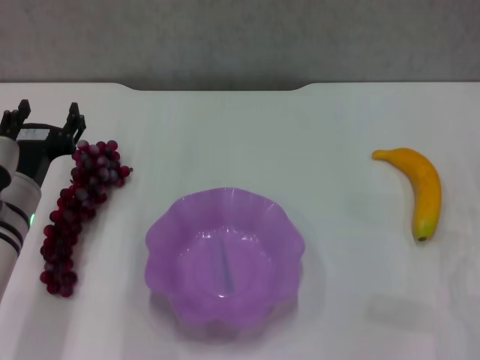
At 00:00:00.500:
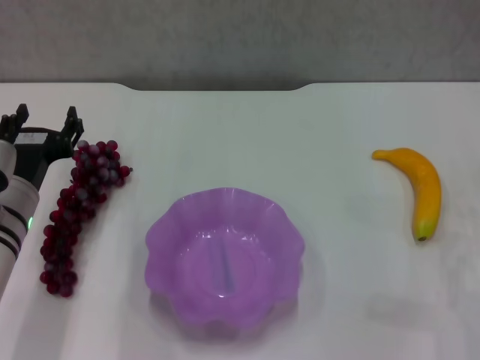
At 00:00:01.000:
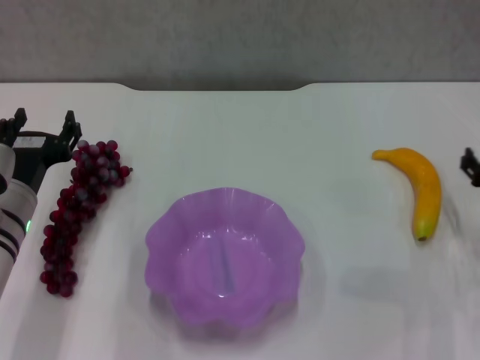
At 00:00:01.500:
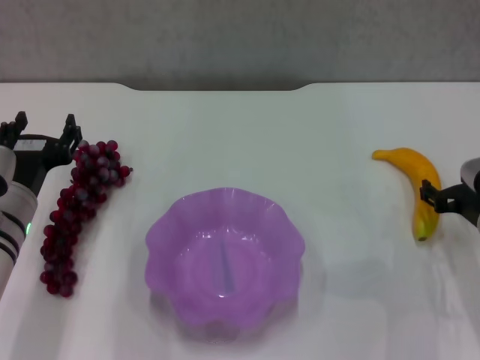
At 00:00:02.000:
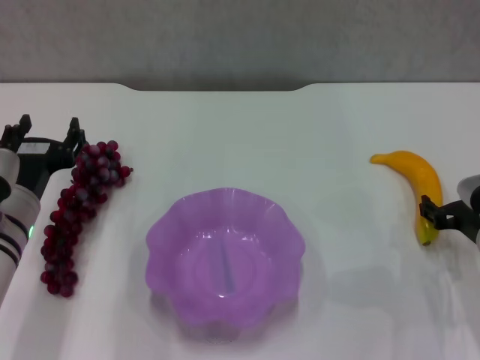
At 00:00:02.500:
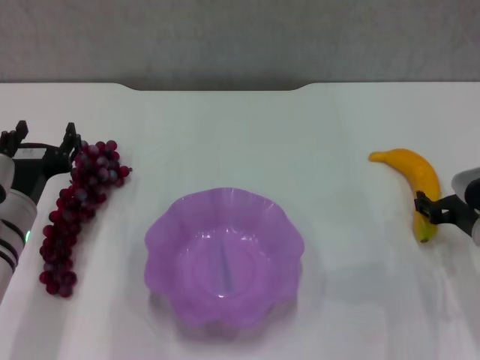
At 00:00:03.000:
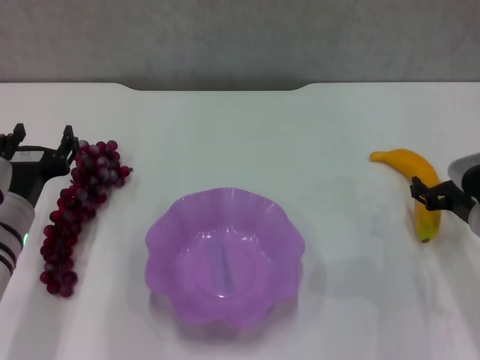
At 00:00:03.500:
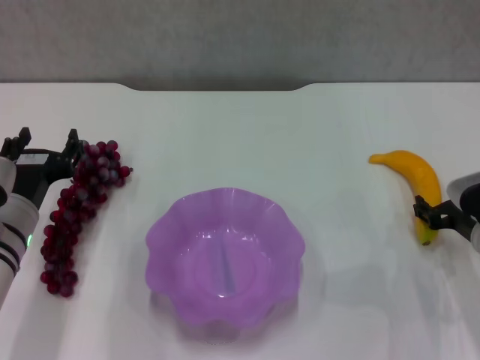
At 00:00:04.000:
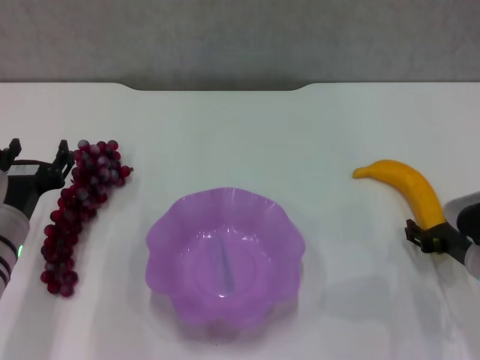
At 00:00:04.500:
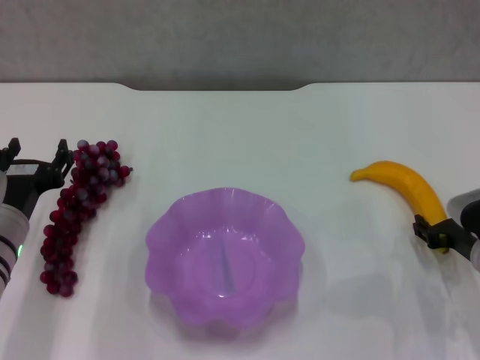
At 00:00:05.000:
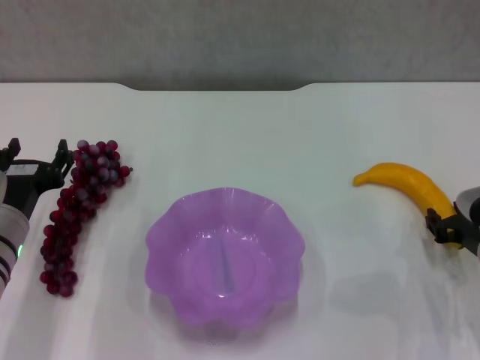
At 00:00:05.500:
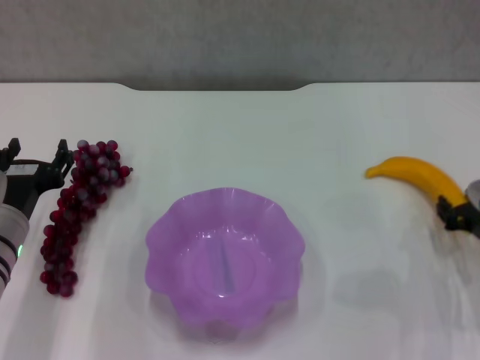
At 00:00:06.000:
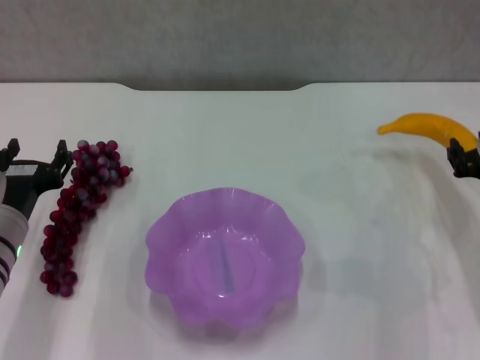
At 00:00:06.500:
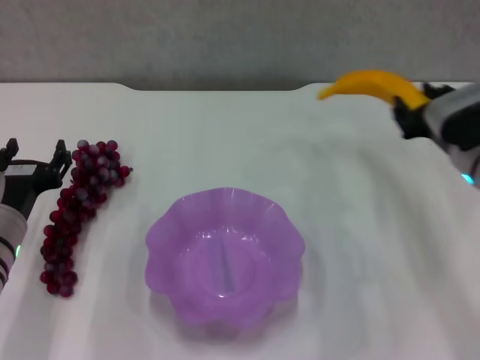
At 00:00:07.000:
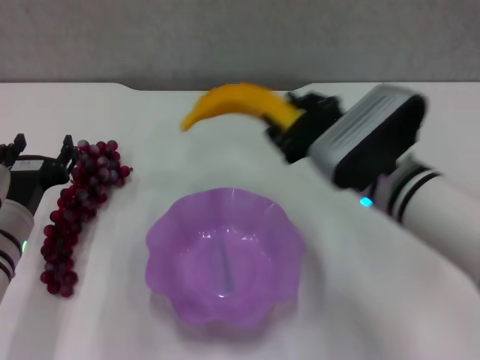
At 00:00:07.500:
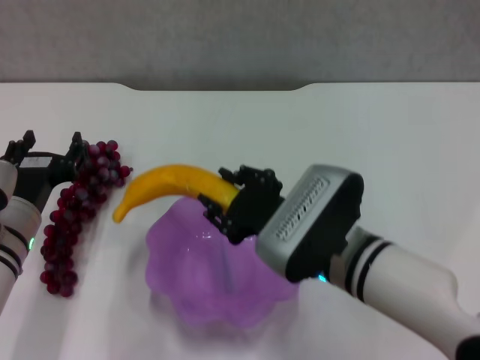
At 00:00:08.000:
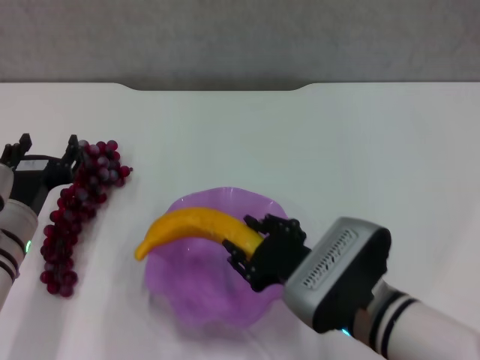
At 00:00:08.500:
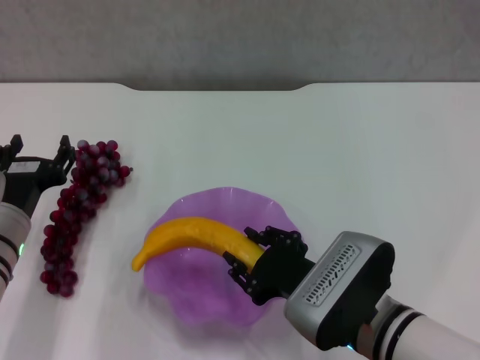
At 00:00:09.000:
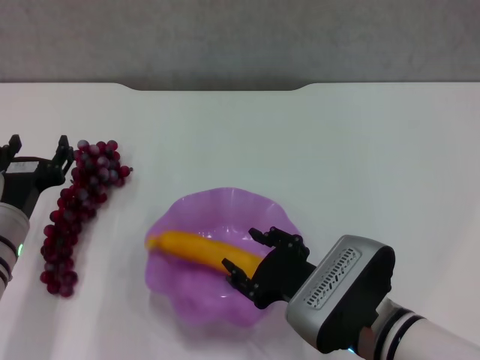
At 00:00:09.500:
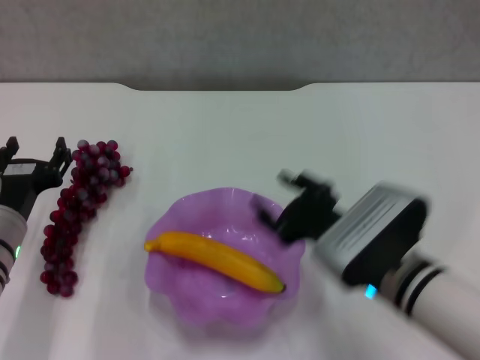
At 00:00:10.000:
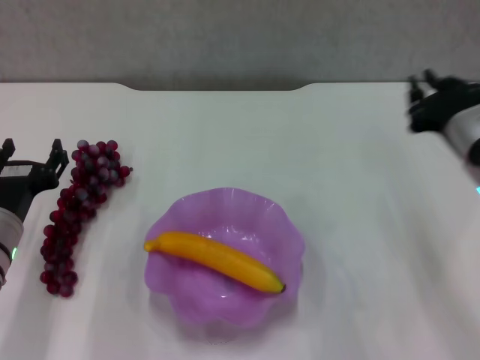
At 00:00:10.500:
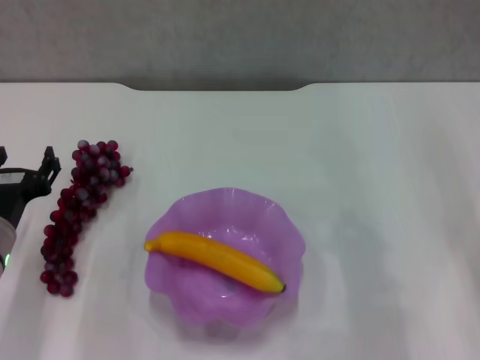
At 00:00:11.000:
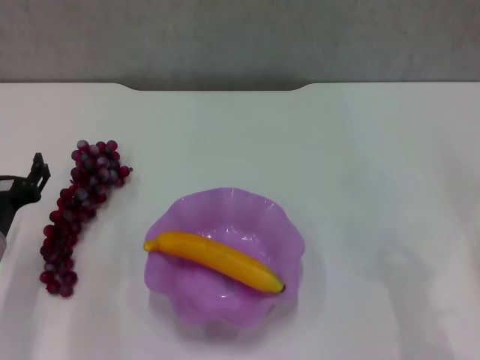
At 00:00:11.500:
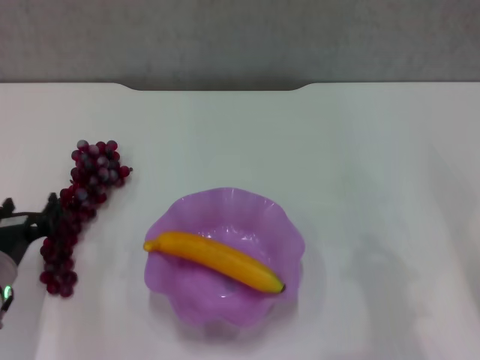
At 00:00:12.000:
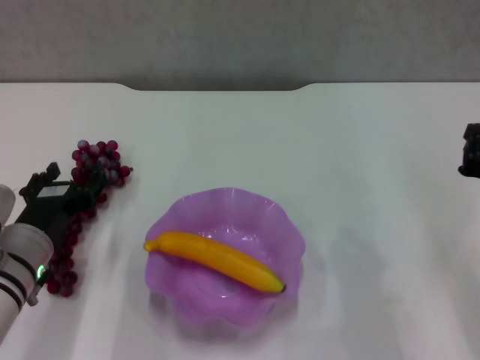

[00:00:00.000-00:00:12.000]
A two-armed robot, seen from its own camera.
Step, 00:00:00.000 to 00:00:05.000: Grasp the banana with right gripper.
Step, 00:00:05.500 to 00:00:09.000: Place the banana in the purple plate with right gripper.
00:00:00.000 to 00:00:02.000: The right gripper travels to the left by about 5 cm.
00:00:02.000 to 00:00:04.000: The grippers stay close to where they were, moving slightly.
00:00:04.000 to 00:00:06.000: The right gripper moves upward, approximately 5 cm, and closes.
00:00:06.000 to 00:00:08.000: The right gripper is displaced to the left and backward by some 20 cm.
00:00:08.000 to 00:00:10.000: The right gripper travels to the right, forward and upward by some 15 cm.
00:00:10.000 to 00:00:12.000: The right gripper shifts some 5 cm backward, and closes.

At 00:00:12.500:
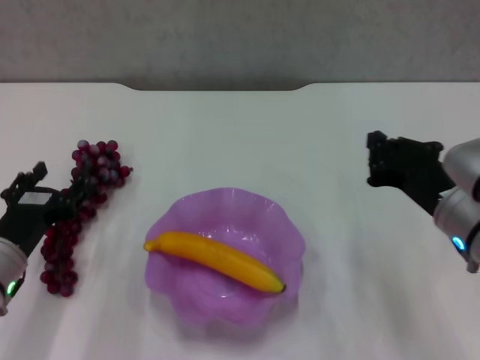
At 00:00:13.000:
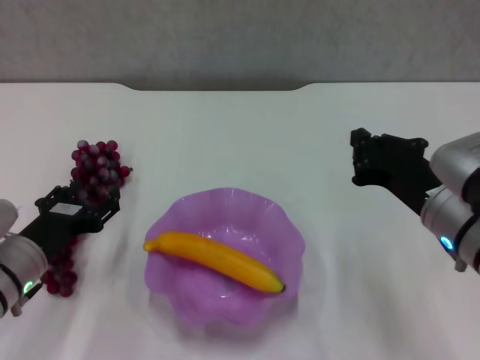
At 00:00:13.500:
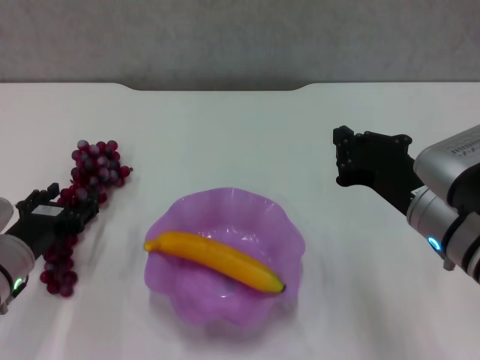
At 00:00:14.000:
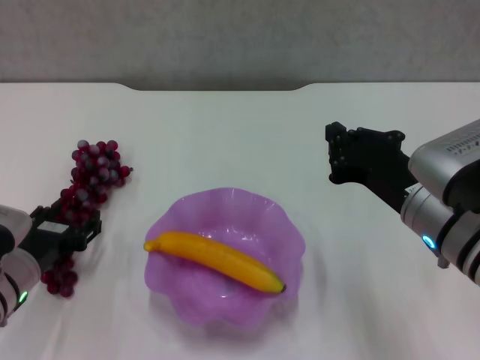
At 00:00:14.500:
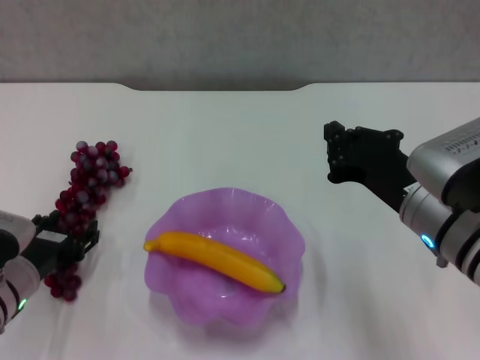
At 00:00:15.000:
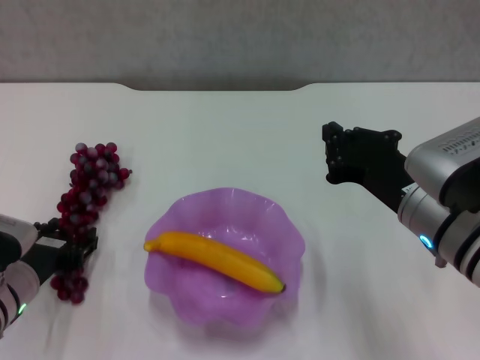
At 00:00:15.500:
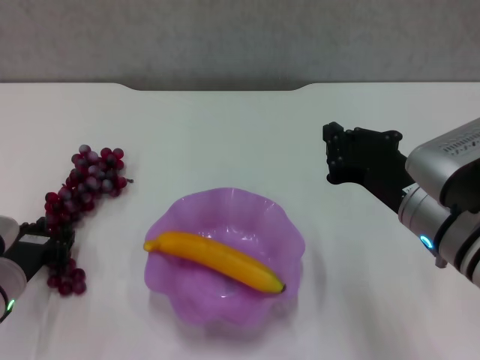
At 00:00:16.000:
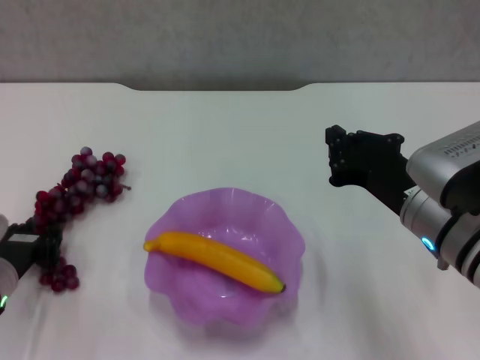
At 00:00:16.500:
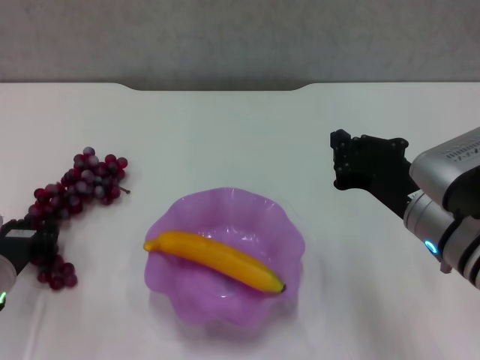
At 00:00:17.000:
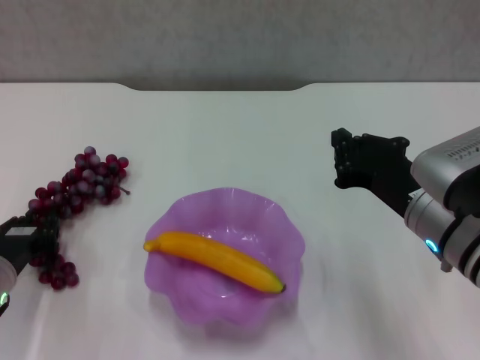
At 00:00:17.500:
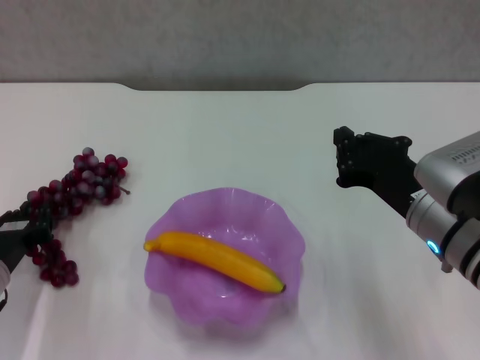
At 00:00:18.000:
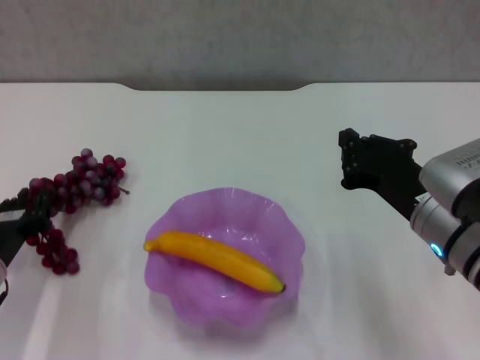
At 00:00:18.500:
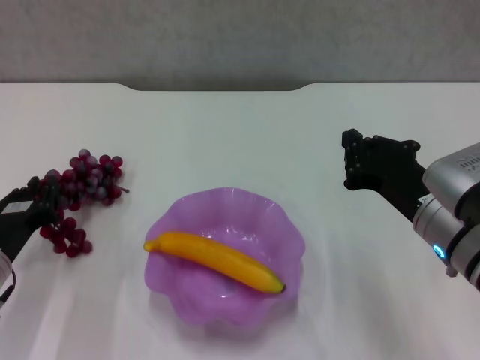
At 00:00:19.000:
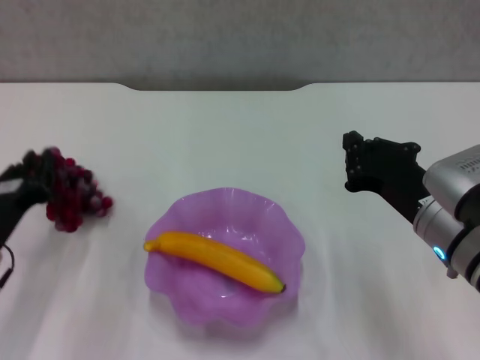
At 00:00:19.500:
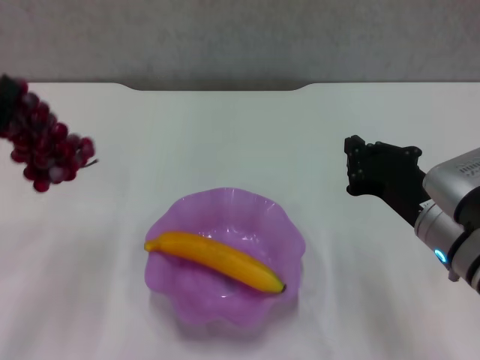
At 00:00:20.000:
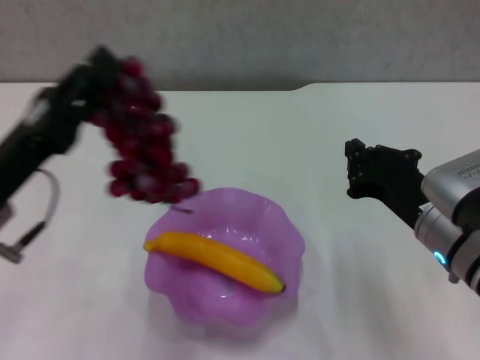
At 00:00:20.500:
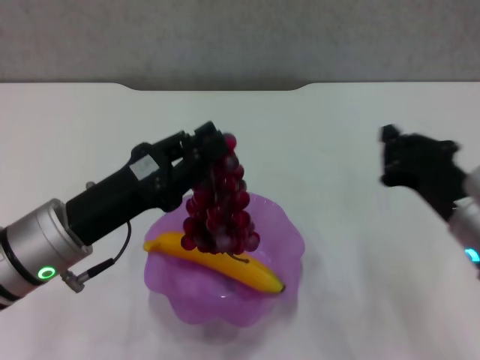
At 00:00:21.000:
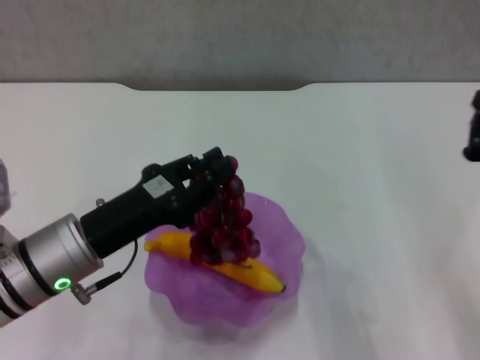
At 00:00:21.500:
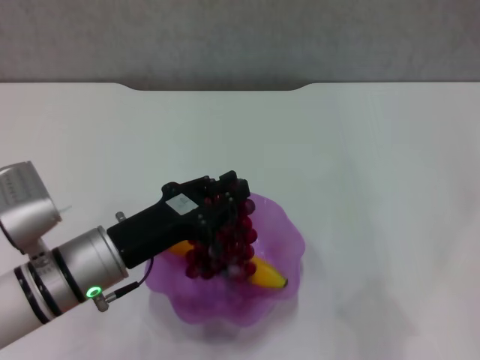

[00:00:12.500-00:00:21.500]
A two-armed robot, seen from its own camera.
Step, 00:00:12.500 to 00:00:15.500: Grasp the grape with left gripper.
00:00:14.500 to 00:00:17.000: The left gripper closes.
00:00:17.000 to 00:00:19.500: The left gripper is displaced upward by about 10 cm.
00:00:19.500 to 00:00:21.500: The right gripper heads to the right and backward, covering approximately 10 cm. Meanwhile the left gripper heads to the right, covering roughly 15 cm.

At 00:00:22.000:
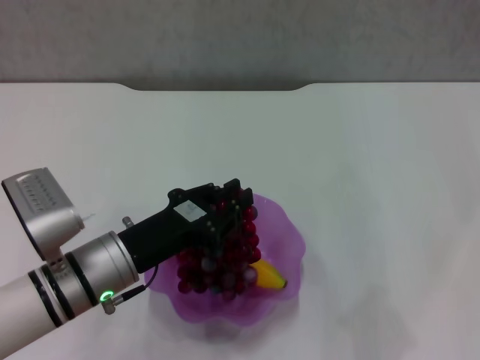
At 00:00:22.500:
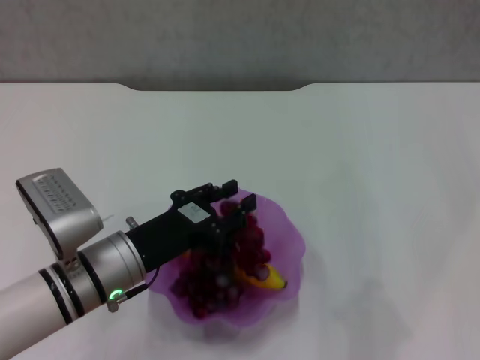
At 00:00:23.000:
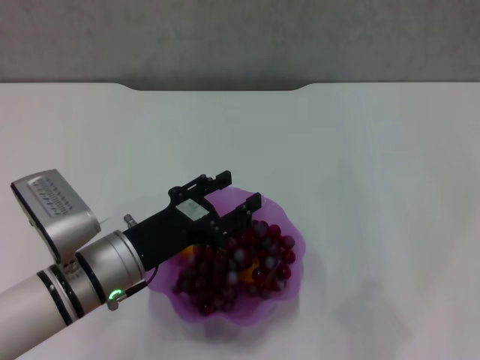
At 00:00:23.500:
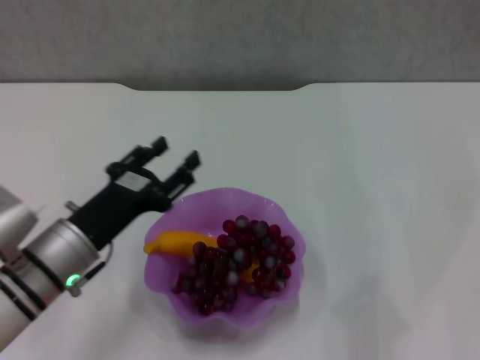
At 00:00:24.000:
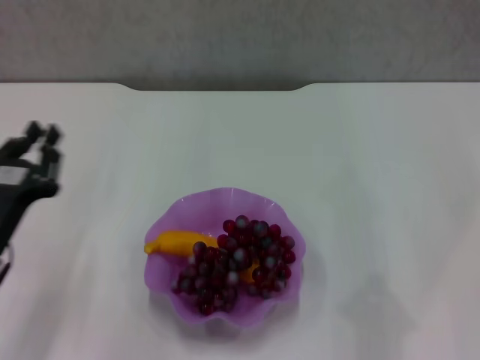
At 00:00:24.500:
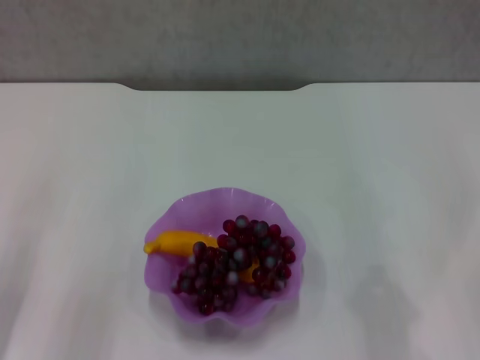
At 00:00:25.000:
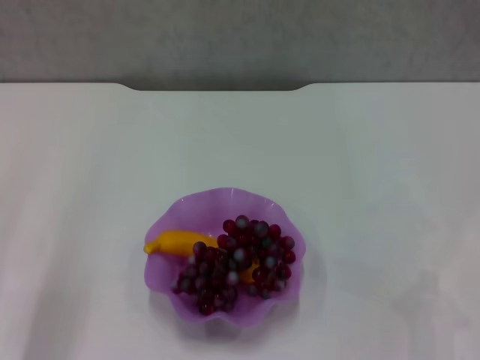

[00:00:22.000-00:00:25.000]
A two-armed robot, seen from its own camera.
00:00:22.000 to 00:00:23.500: The left gripper opens its fingers.
00:00:23.500 to 00:00:25.000: The right gripper moves about 5 cm. The left gripper heads to the left and backward, covering roughly 15 cm, and closes.
